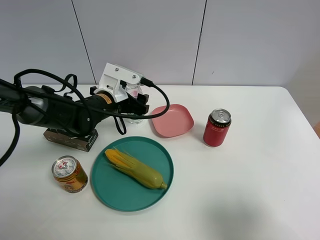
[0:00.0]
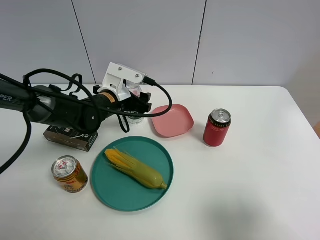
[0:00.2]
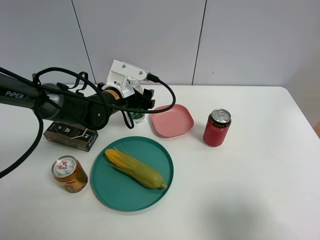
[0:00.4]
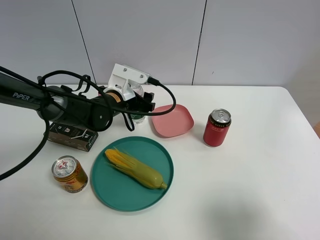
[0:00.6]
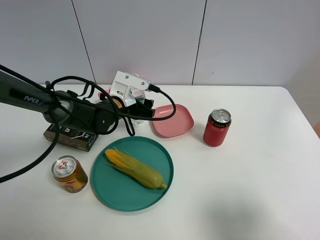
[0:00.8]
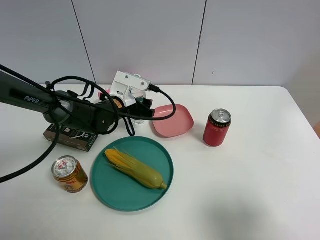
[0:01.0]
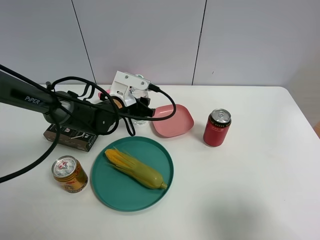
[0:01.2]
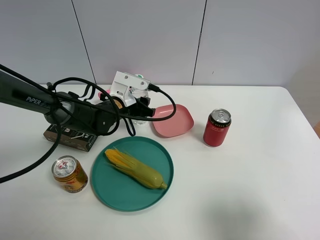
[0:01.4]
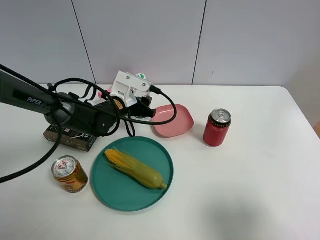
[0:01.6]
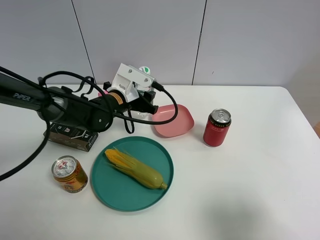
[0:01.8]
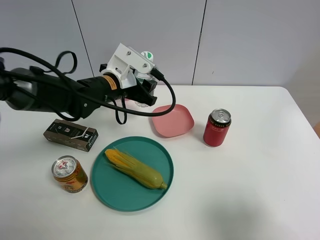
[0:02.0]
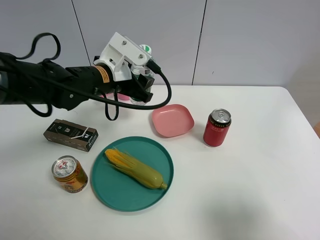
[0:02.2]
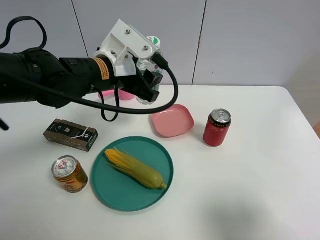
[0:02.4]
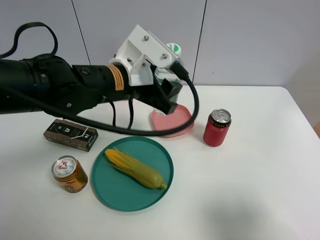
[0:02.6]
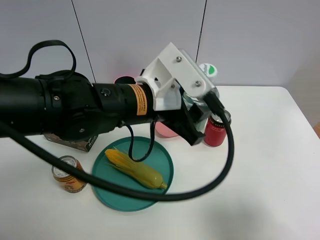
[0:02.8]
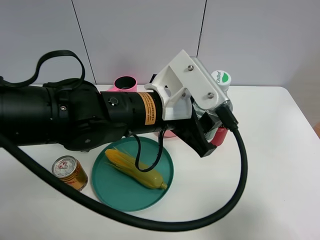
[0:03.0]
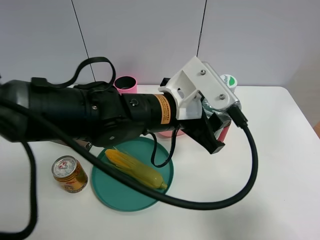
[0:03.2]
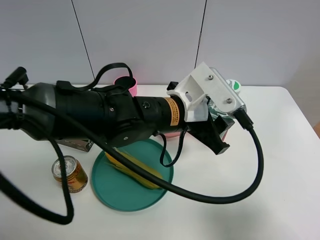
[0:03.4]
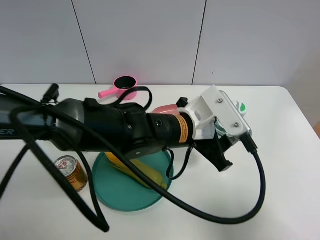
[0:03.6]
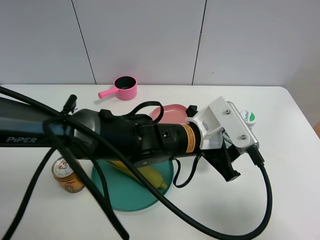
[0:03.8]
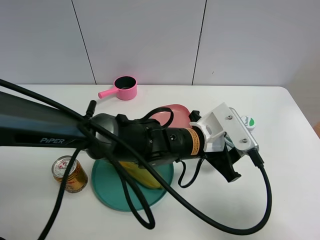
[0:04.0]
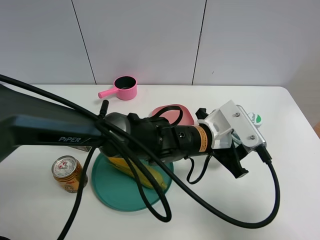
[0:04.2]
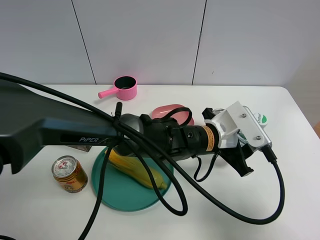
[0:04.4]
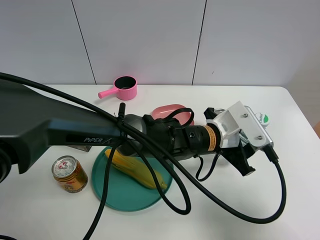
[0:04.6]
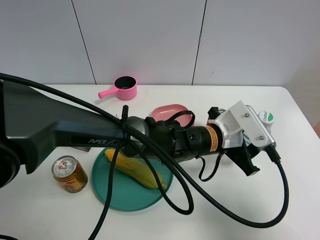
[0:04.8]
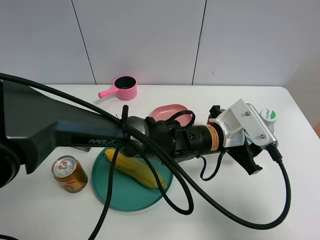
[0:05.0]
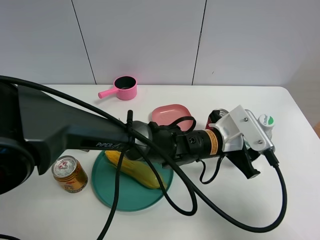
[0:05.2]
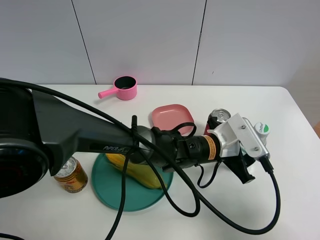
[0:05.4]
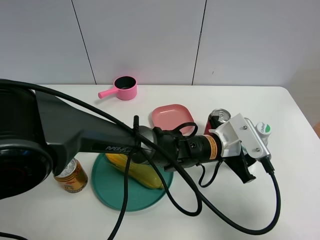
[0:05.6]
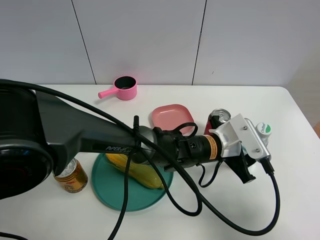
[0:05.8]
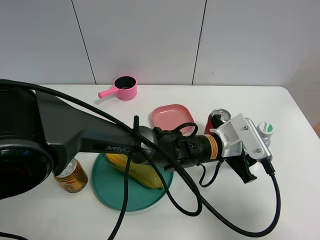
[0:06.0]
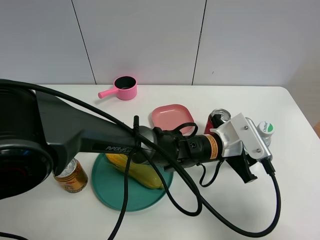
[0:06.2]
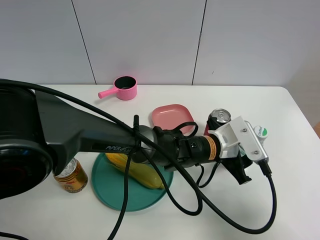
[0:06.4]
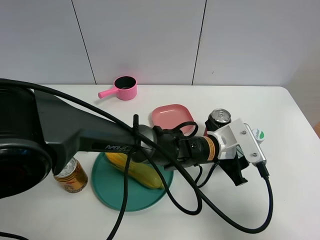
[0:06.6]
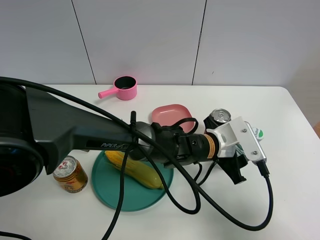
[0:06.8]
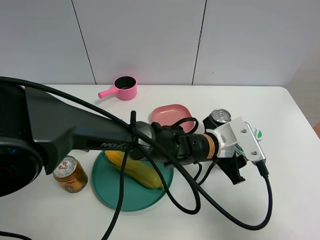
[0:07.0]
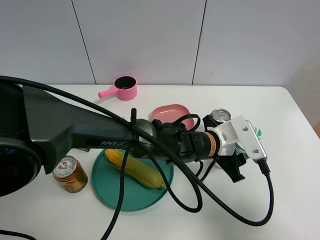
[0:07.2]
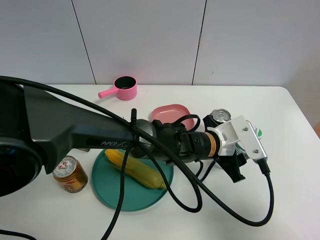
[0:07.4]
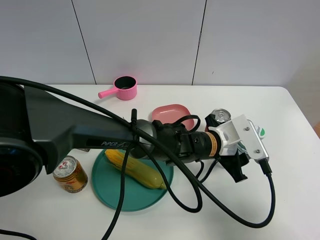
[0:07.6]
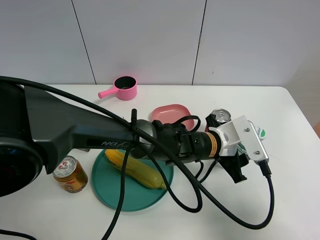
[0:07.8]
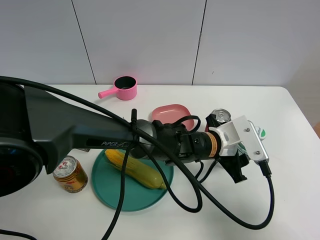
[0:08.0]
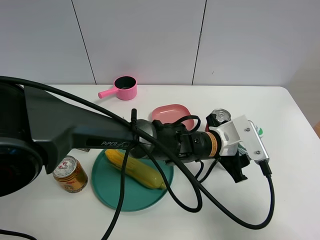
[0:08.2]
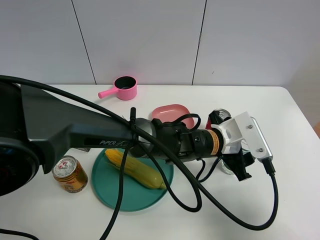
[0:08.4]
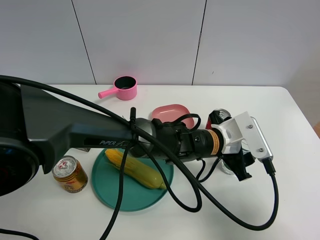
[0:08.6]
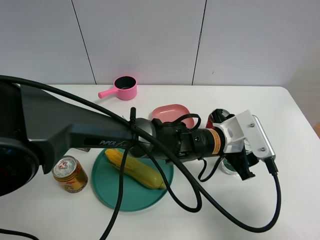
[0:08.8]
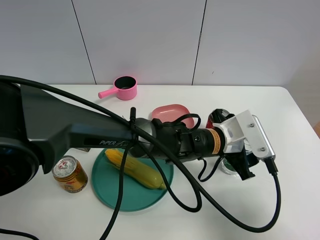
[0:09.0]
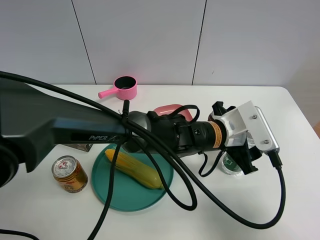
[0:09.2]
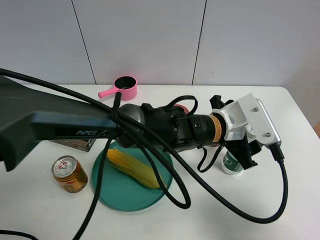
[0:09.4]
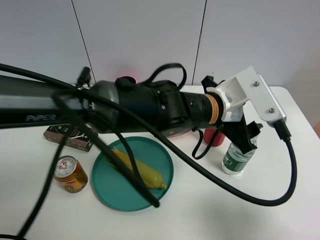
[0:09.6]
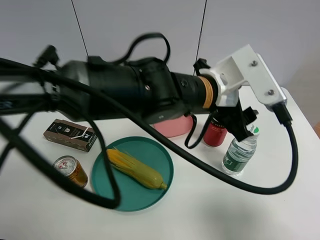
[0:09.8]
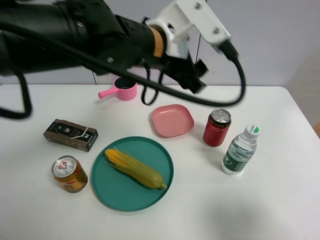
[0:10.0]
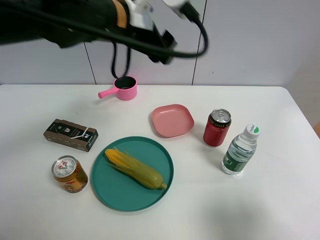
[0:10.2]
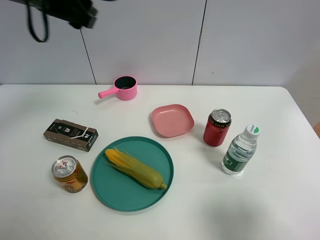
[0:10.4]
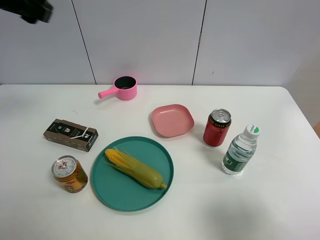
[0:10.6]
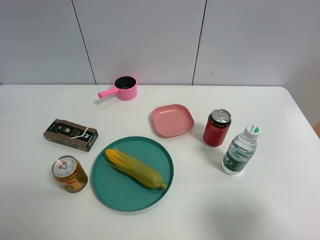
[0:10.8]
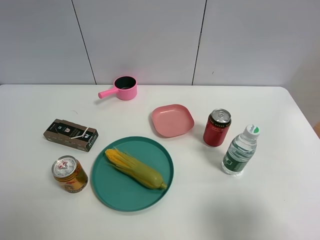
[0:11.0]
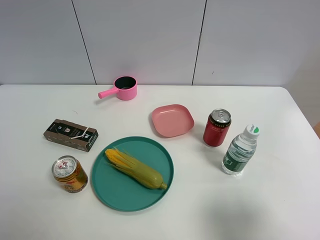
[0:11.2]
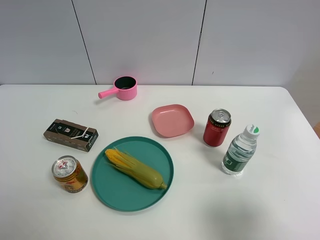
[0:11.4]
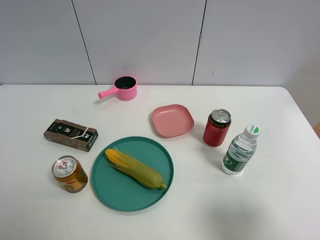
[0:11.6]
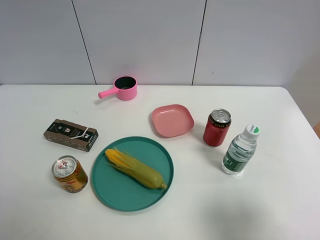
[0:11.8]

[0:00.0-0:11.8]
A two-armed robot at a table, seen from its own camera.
Task of the whole recording: the gripper move the object.
Step, 0:01.4 to 0:09.8: Place the YiBao mineral water on the table with the left gripper.
0:00.0 to 0:01.4: The left gripper closes.
0:01.4 to 0:03.0: The left gripper shifts roughly 25 cm backward, upward and to the right.
0:03.0 to 0:04.4: The left gripper moves downward and to the right, approximately 15 cm.
0:06.0 to 0:07.4: The grippers move only a little.
0:07.4 to 0:08.8: The left gripper opens.
0:08.8 to 0:10.4: The left gripper moves to the left and upward, approximately 40 cm.
0:10.4 to 0:11.8: The left gripper goes about 40 cm backward.

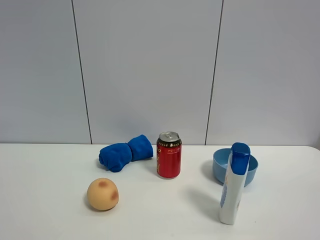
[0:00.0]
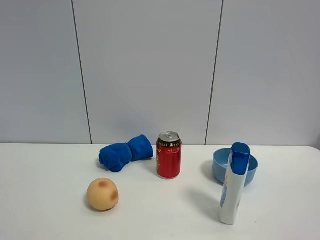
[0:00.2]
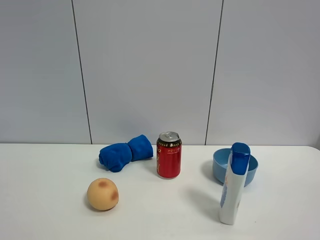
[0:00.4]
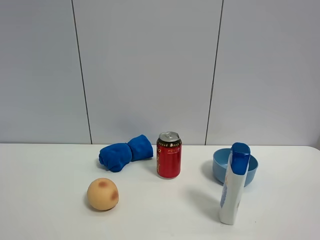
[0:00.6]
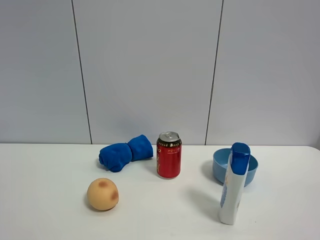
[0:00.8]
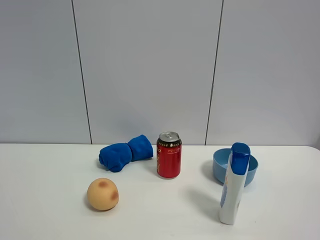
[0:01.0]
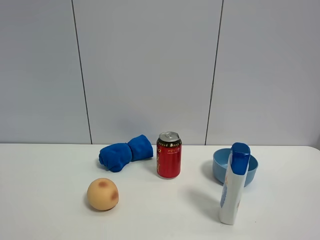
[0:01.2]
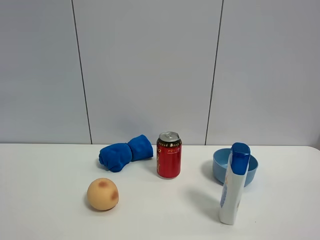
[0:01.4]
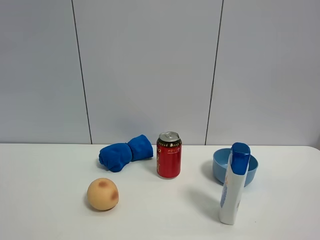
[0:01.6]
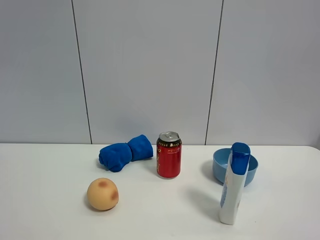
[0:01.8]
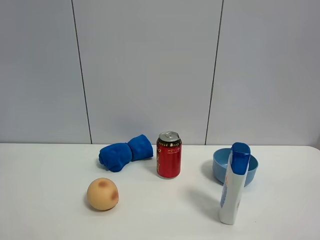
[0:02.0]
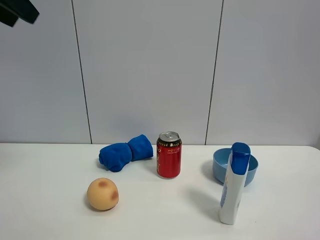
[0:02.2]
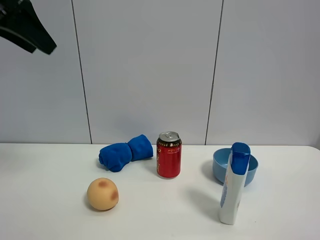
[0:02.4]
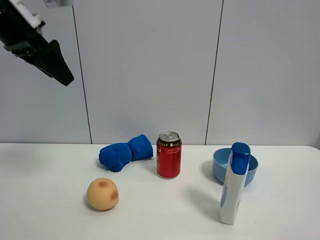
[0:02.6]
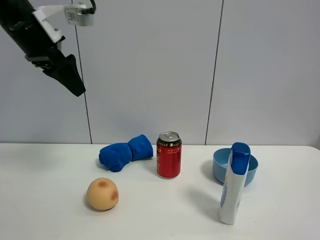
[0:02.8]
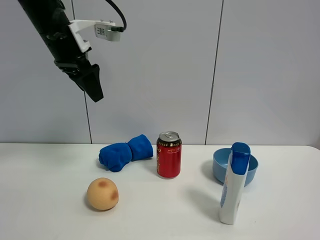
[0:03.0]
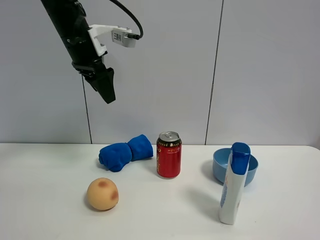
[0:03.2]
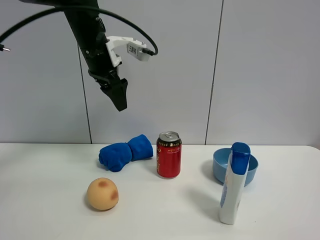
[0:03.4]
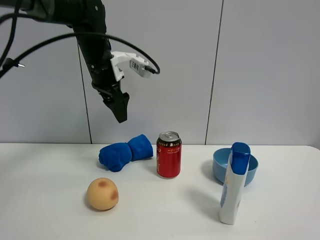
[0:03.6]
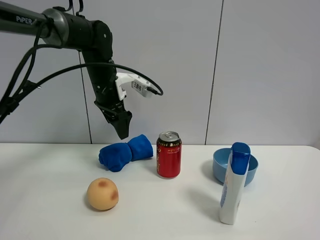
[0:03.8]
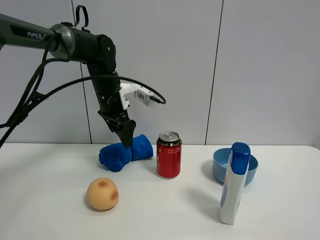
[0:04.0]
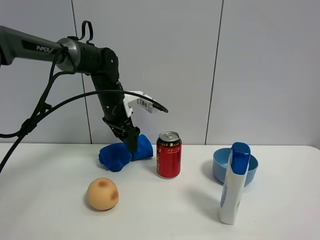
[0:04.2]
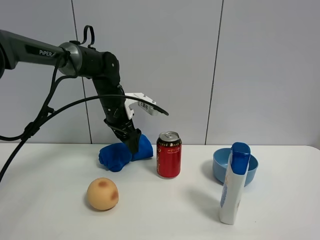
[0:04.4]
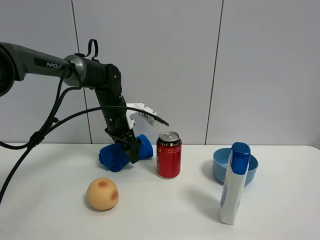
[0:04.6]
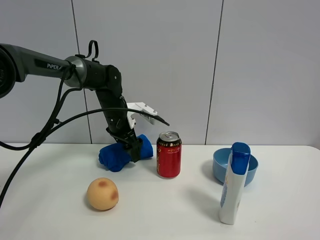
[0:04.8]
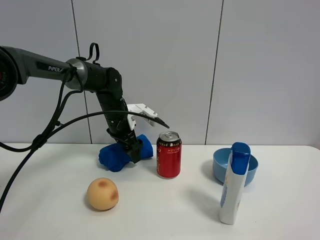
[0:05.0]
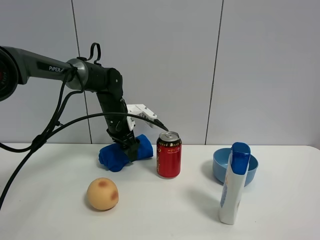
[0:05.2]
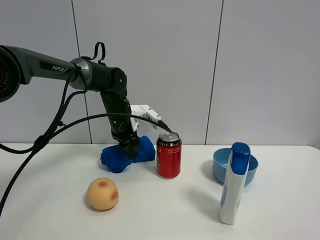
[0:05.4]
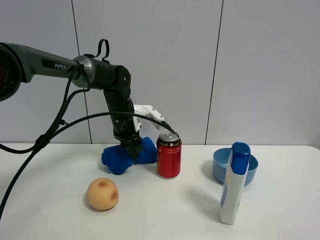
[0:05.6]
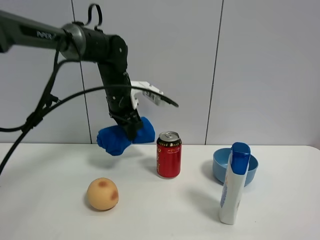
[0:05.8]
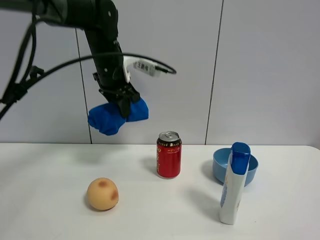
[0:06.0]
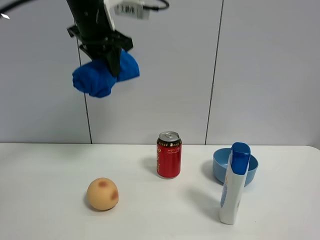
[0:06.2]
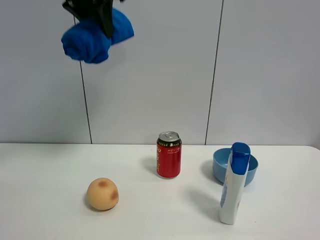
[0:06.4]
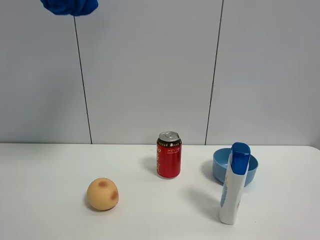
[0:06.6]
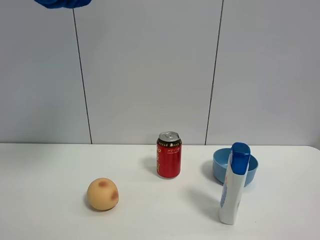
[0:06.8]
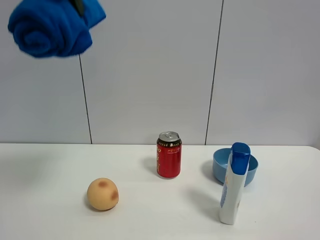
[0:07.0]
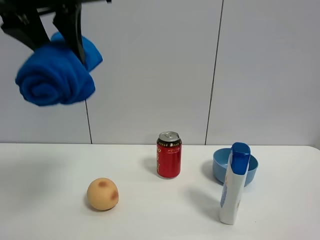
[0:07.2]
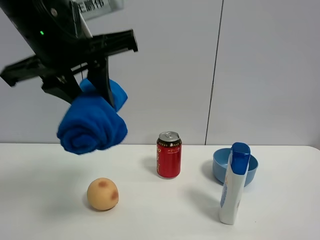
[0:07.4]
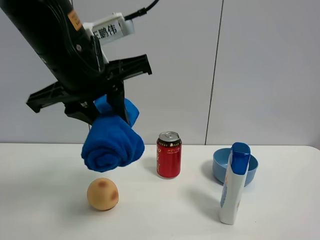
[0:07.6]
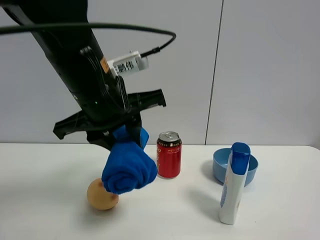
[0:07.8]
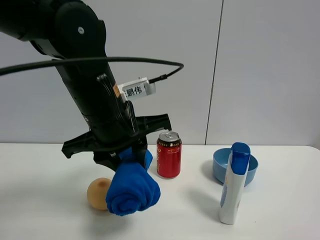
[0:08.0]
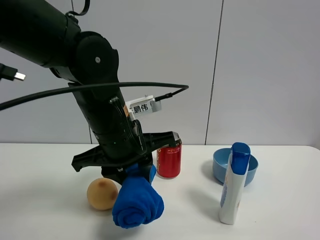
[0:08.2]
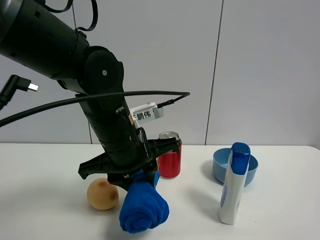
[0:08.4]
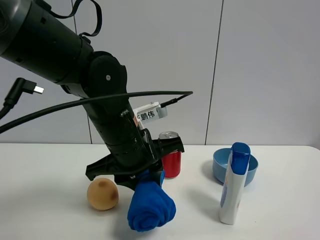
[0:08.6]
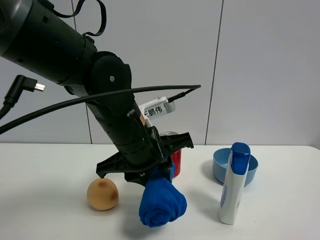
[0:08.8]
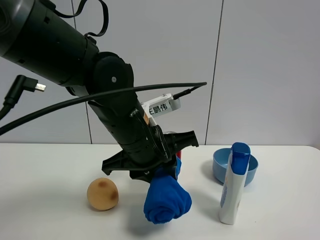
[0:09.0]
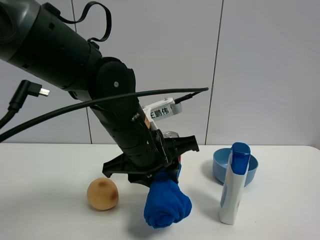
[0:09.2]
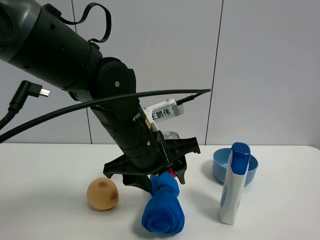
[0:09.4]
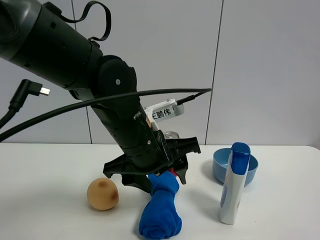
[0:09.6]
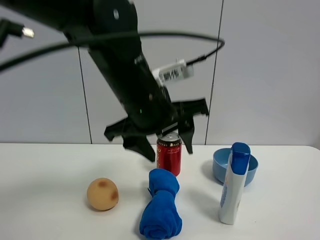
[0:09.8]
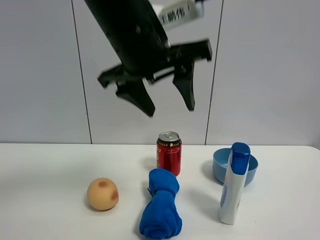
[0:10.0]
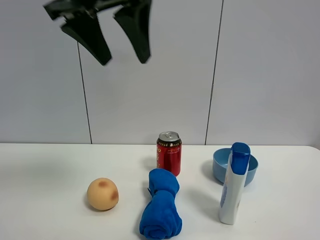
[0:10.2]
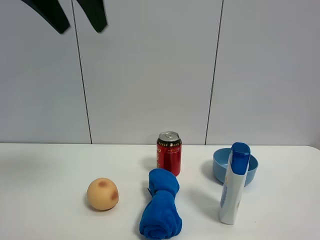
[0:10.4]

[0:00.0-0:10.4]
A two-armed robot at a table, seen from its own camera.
Task of the whole recording: the gripper move the object.
Step, 0:00.0 to 0:05.4: Grasp the blue towel with the left gripper.
Step, 0:05.6 to 0:09.6: Place the blue towel on the table with the left gripper.
0:01.4 to 0:03.0: The left gripper is displaced forward by approximately 35 cm.
0:03.0 to 0:04.4: The left gripper shifts about 20 cm downward and forward.
0:04.4 to 0:06.0: The left gripper travels upward by approximately 10 cm, and closes its fingers.
0:06.0 to 0:07.4: The left gripper is displaced backward by about 20 cm, and travels upward and back again, some 25 cm each way.
0:07.4 to 0:09.0: The left gripper goes about 15 cm downward and to the right.
0:09.0 to 0:10.4: The left gripper goes about 25 cm upward, and opens its fingers.
